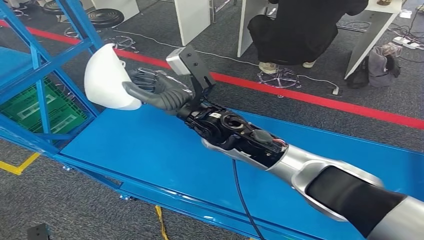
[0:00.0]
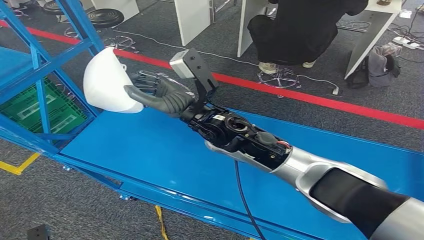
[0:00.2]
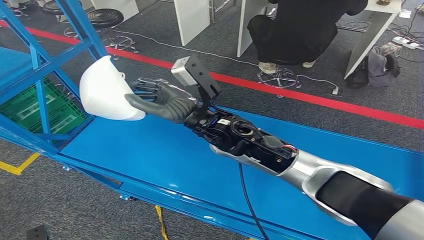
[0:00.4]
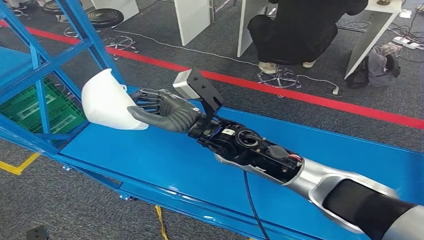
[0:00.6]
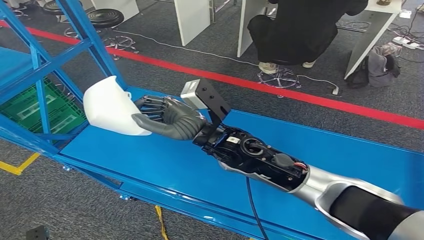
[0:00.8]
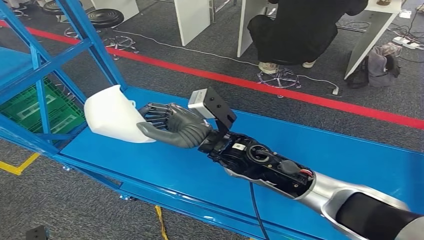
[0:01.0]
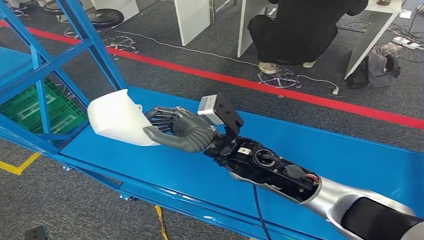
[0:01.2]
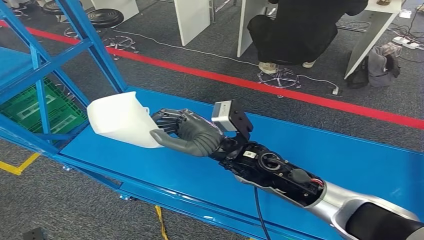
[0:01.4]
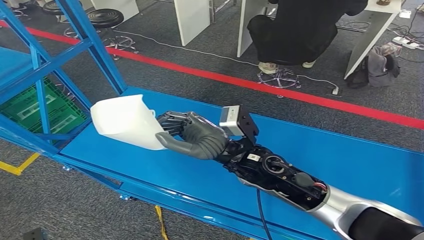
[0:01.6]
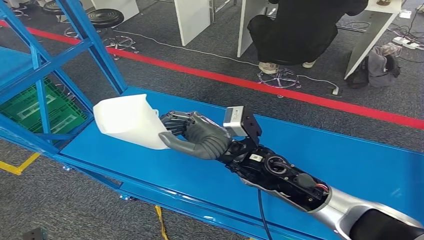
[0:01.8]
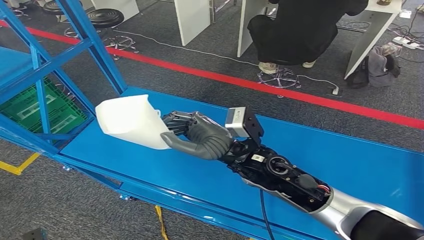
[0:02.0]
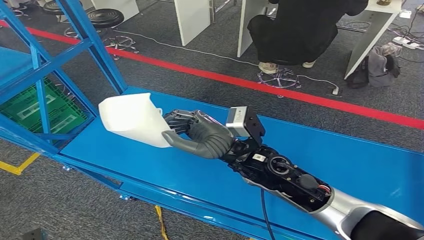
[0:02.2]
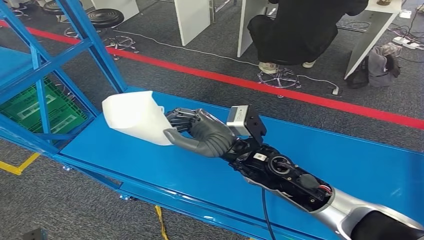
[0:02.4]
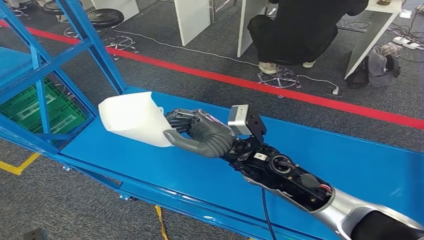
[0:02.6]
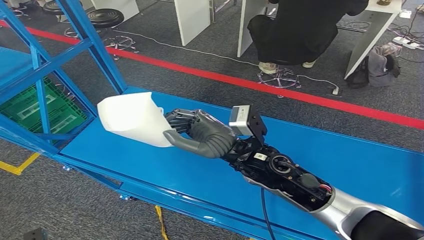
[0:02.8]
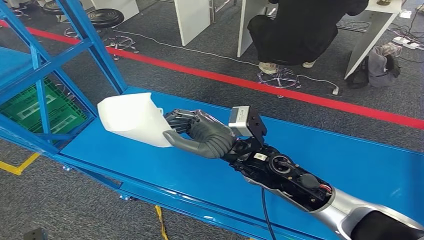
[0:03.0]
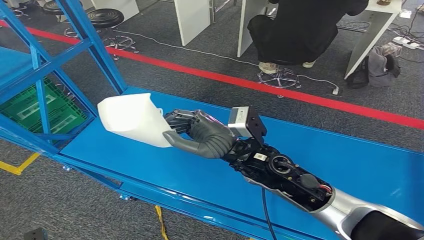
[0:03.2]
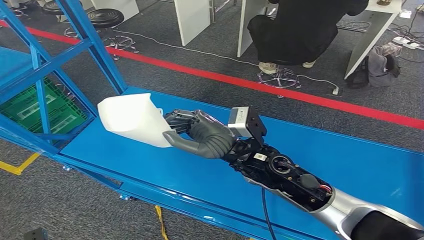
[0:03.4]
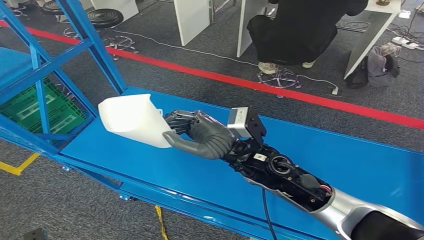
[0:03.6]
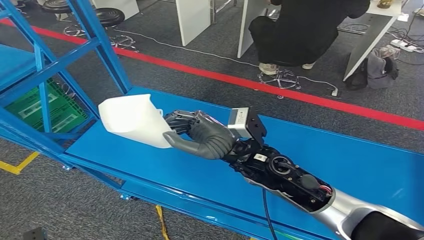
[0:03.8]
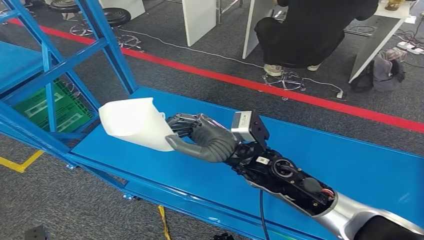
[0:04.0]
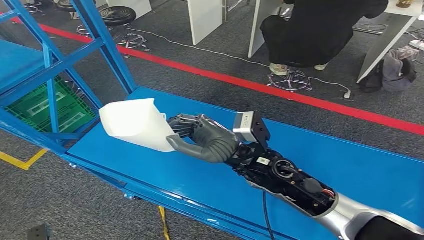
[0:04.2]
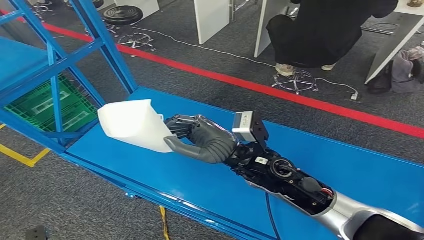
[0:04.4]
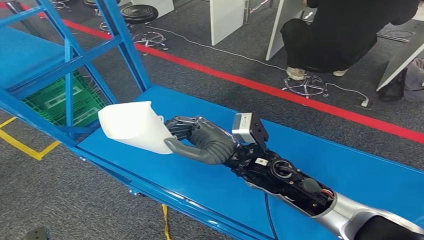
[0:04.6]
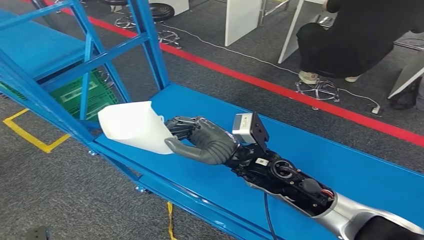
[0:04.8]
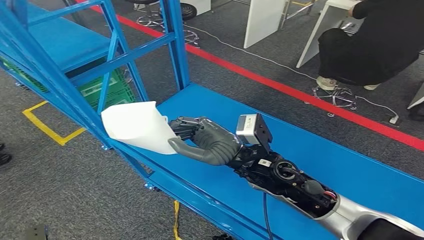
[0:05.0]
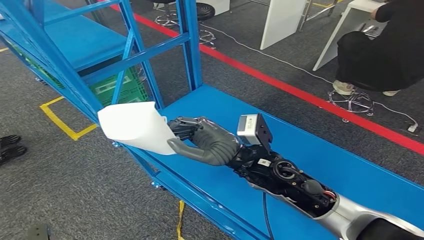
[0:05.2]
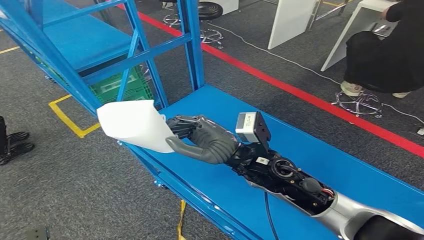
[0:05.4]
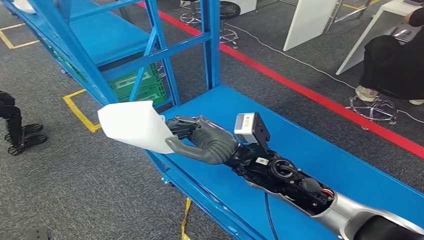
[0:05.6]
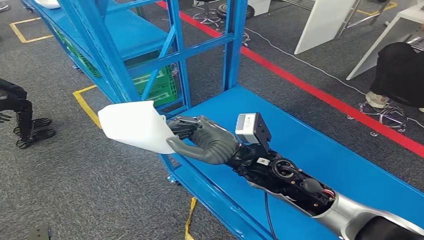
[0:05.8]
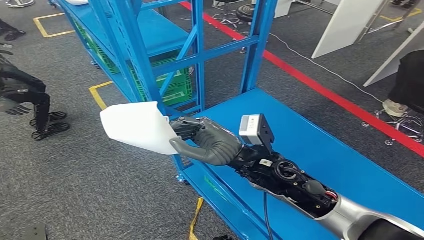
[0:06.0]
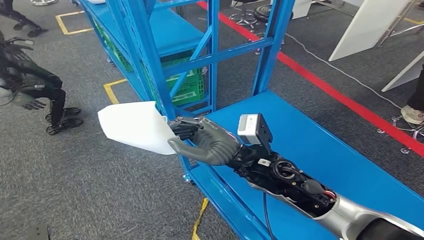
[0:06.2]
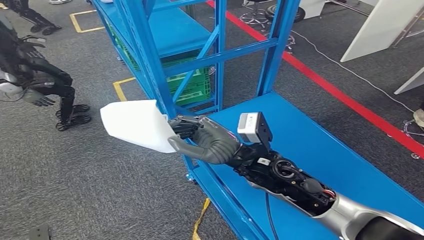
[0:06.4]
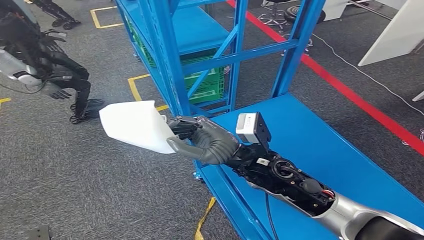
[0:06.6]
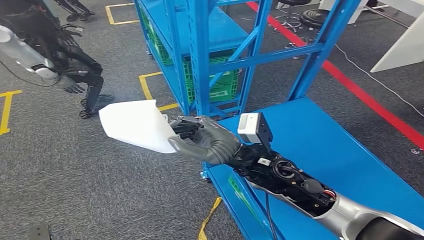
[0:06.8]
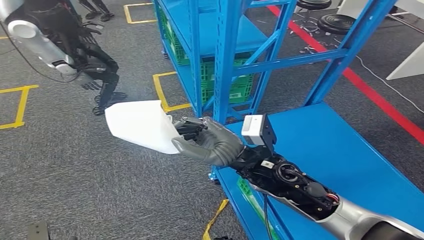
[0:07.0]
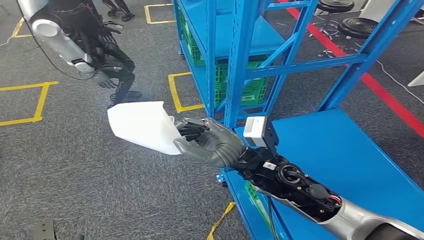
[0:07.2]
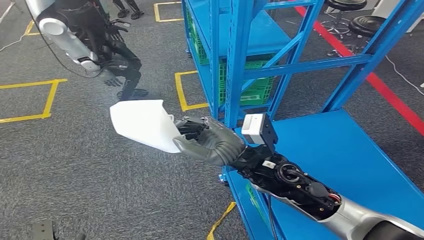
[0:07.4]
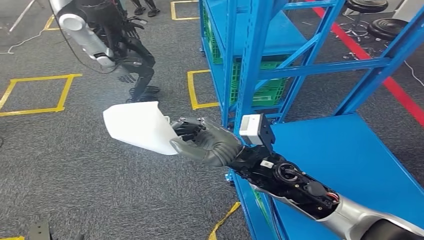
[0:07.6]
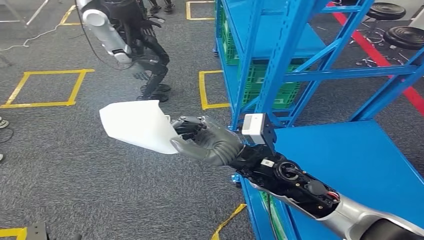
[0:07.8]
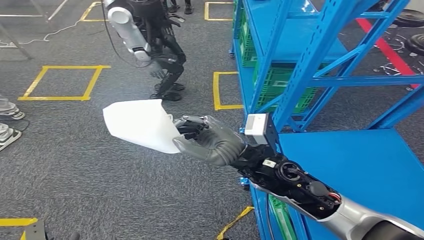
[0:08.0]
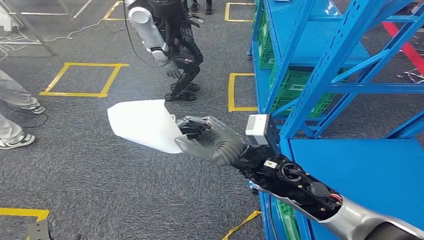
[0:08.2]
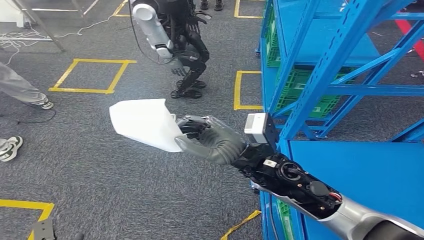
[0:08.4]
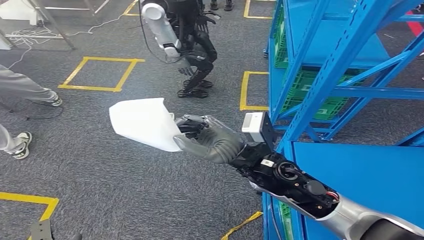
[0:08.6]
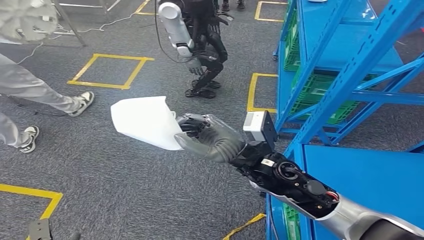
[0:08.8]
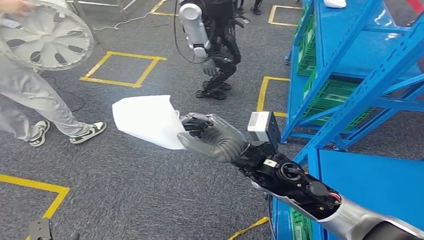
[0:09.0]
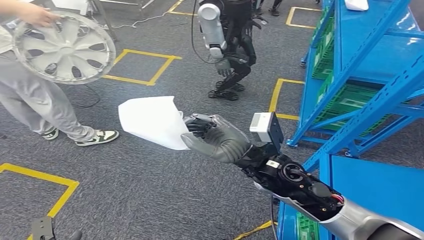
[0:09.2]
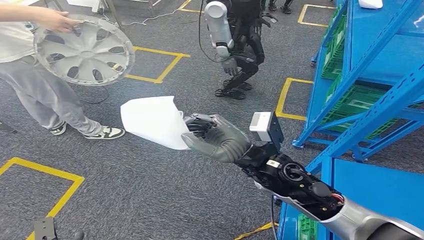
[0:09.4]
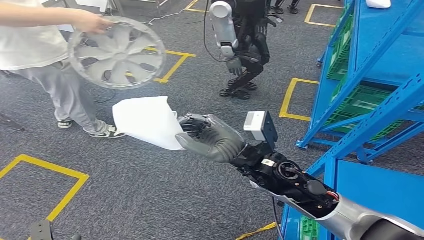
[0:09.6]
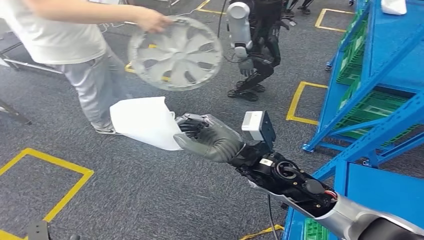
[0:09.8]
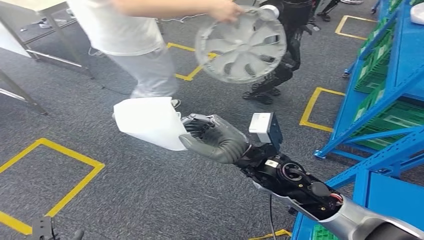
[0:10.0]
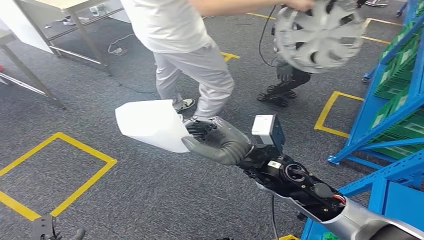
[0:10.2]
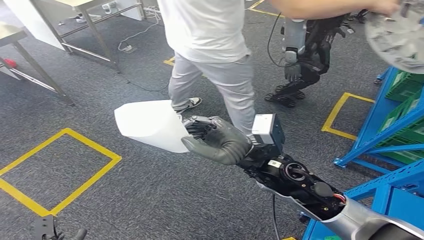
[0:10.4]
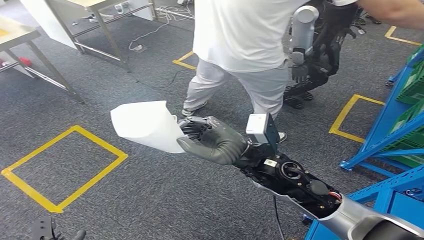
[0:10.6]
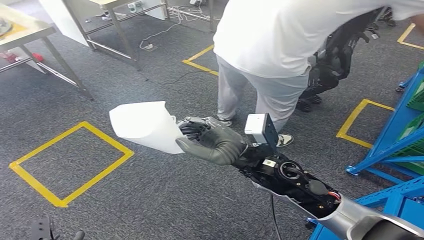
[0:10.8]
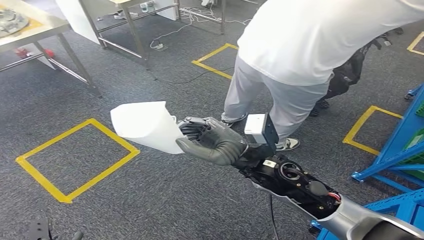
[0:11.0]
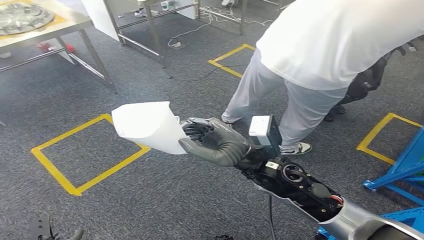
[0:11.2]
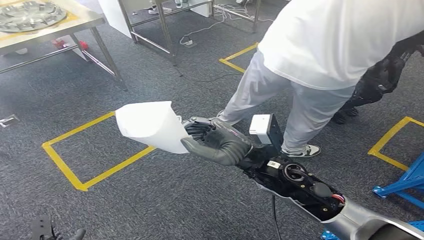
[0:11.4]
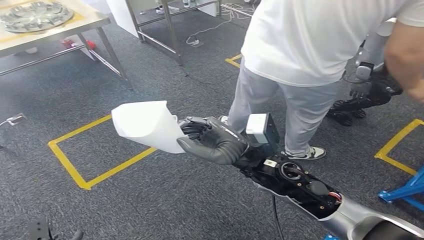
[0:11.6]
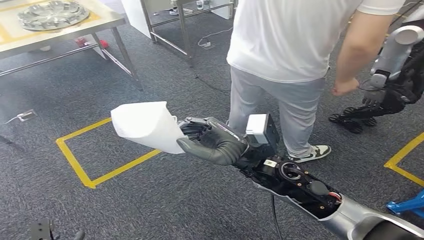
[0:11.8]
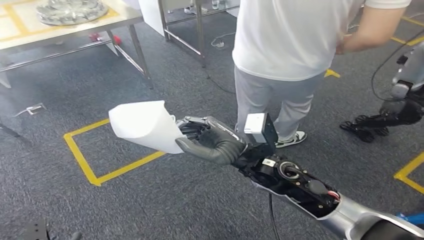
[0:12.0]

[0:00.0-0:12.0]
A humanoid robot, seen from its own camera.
0.0 to 1.6 s: The right hand shifts about 10 cm backward and downward.
1.6 to 3.0 s: Both hands stay put.

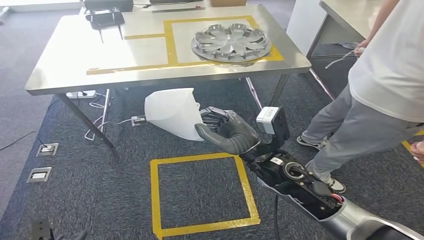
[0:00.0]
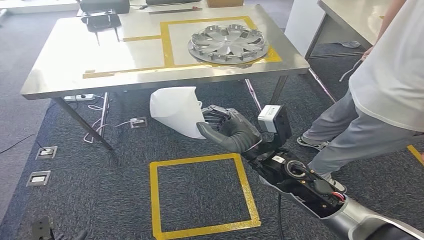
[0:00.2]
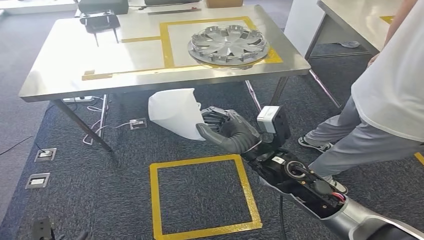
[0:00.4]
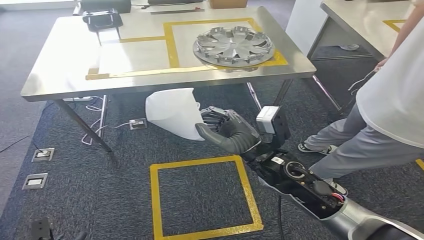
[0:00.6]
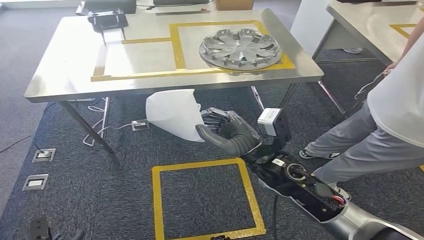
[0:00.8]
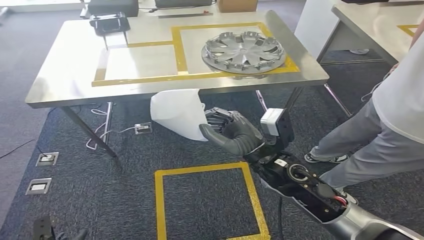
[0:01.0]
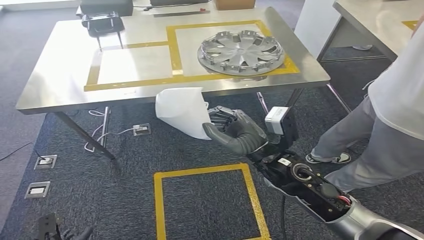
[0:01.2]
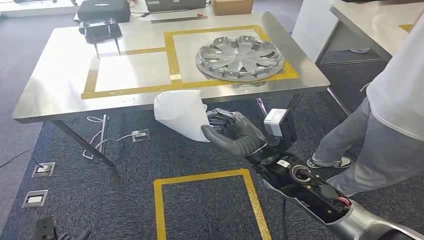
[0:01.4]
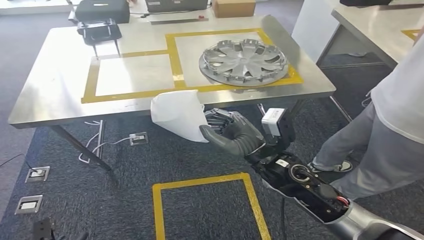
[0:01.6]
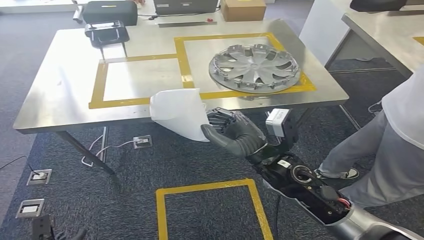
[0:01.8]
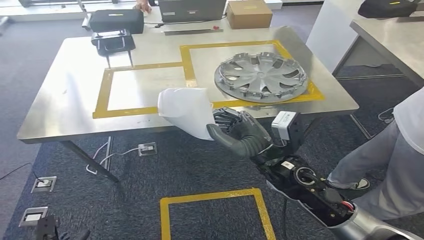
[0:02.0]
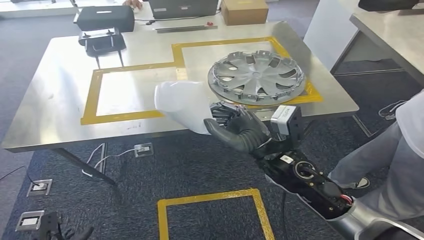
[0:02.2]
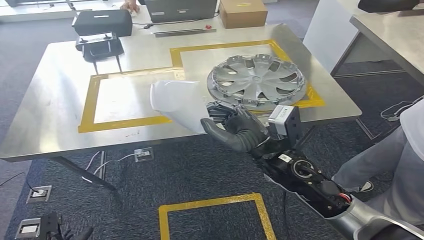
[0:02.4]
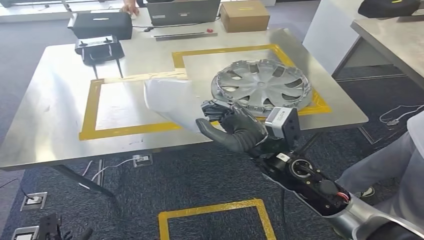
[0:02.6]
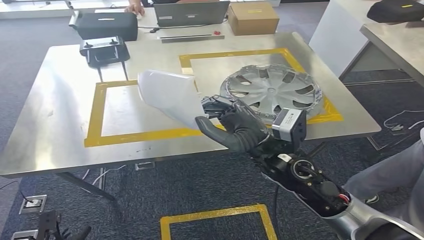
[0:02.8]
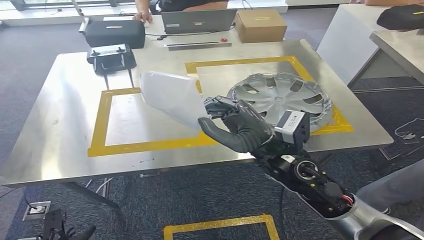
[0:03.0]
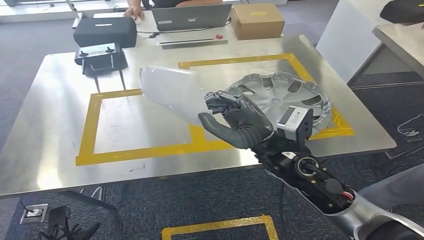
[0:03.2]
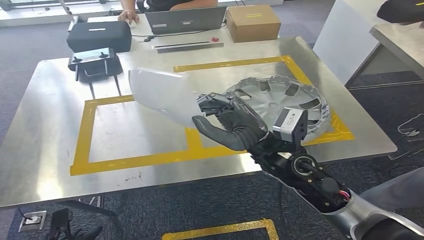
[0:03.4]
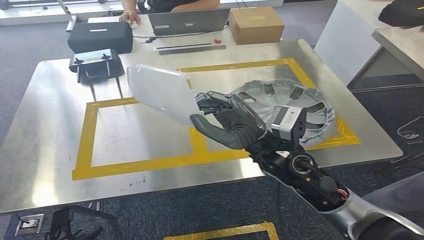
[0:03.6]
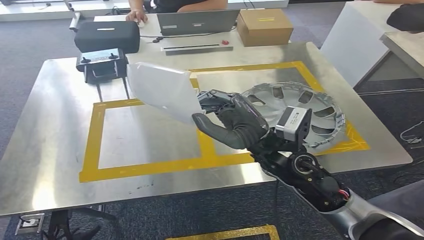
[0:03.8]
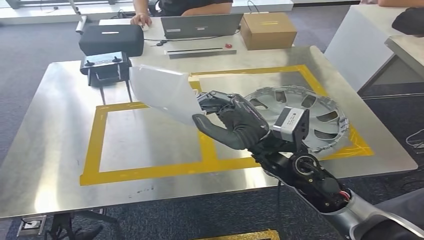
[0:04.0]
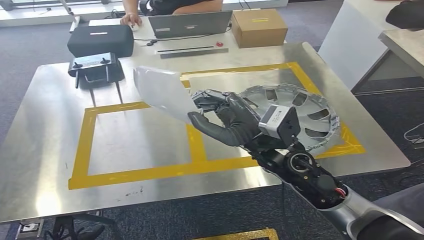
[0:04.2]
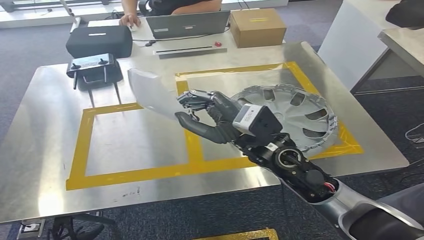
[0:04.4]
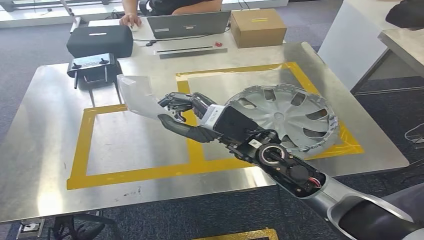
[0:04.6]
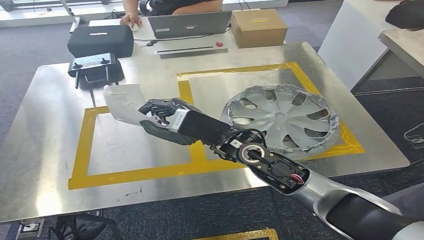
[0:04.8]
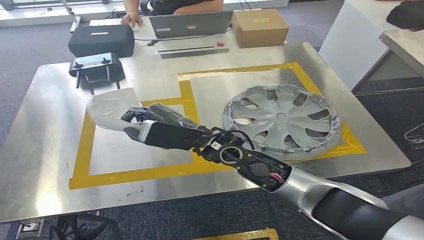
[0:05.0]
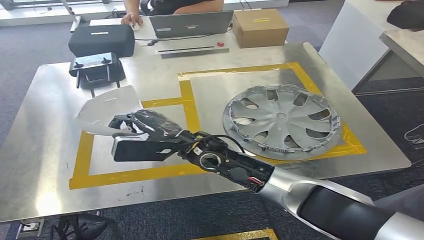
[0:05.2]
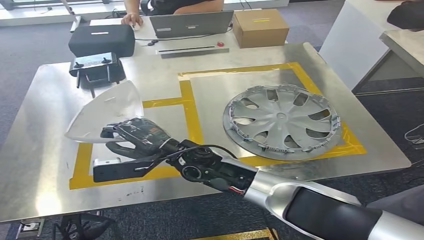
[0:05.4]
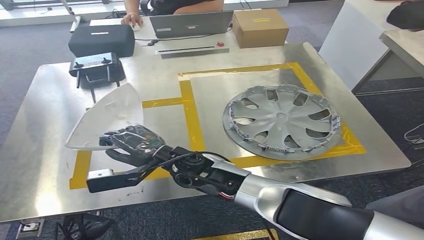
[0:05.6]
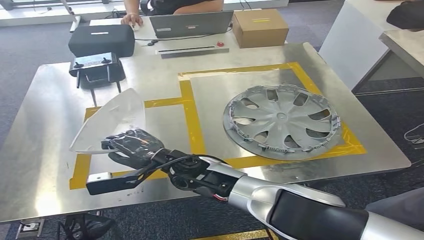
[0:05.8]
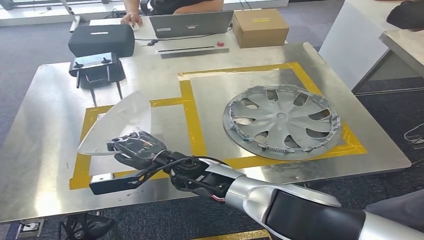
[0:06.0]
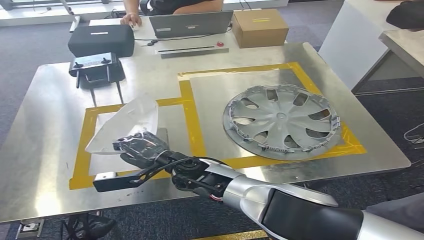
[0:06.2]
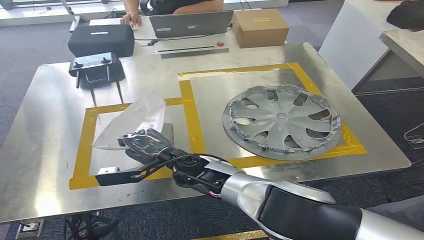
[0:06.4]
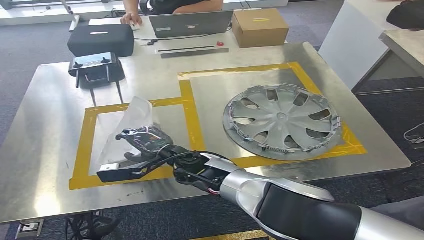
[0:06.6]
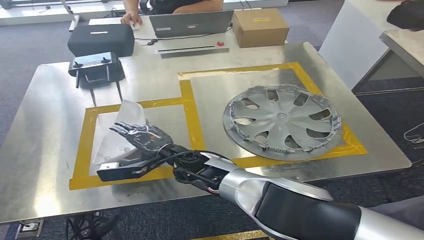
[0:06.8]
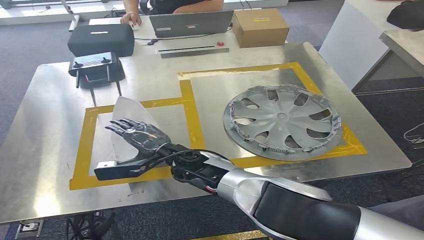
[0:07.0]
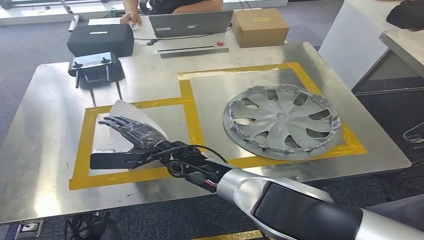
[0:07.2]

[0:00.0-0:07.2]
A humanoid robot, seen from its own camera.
Step, 0.0 to 3.8 s: Move the small component to the workbench.
5.8 to 7.2 s: The hands make only small movements.
